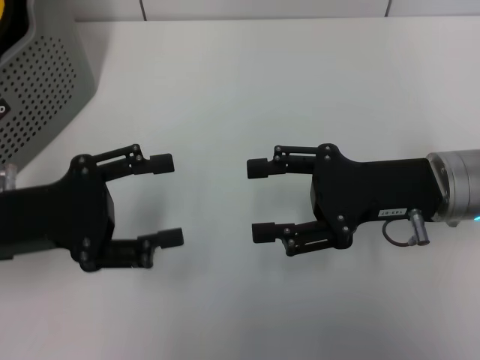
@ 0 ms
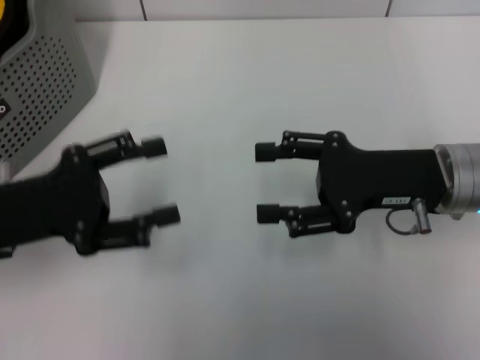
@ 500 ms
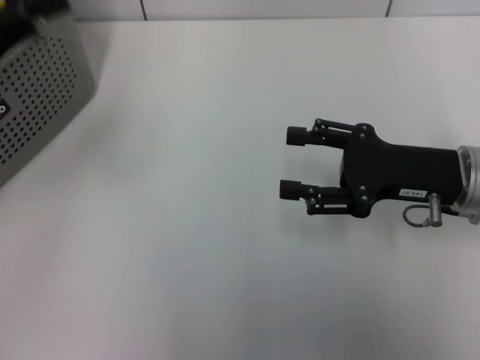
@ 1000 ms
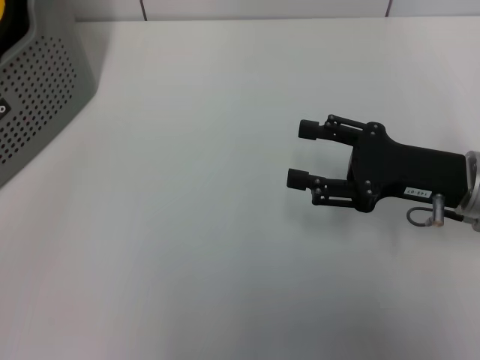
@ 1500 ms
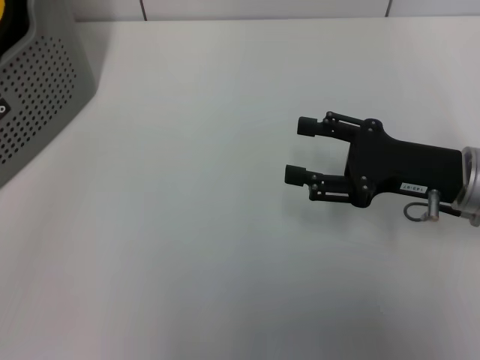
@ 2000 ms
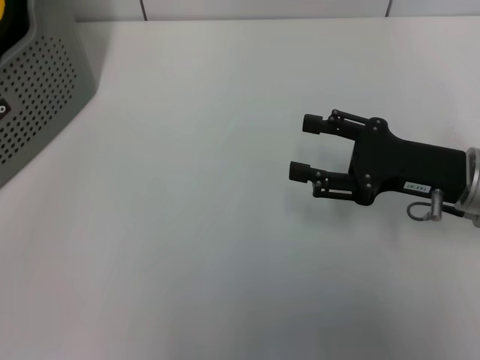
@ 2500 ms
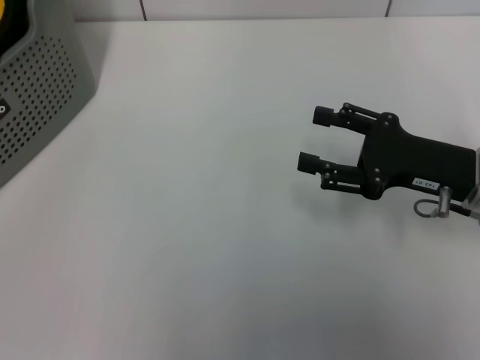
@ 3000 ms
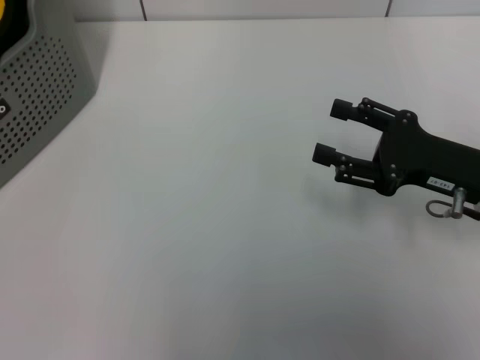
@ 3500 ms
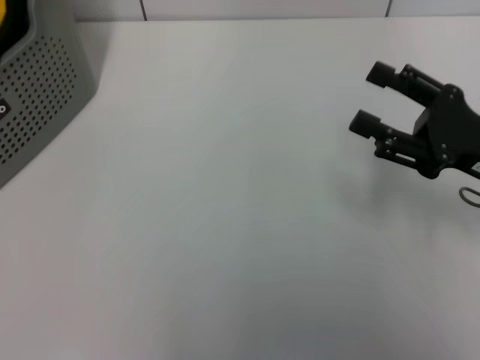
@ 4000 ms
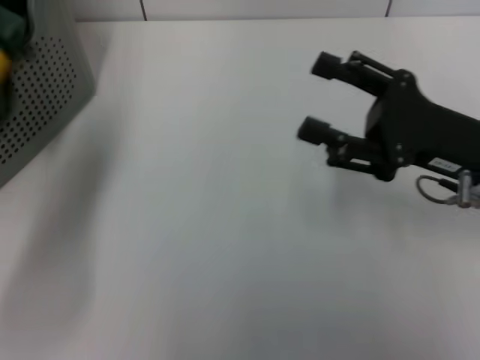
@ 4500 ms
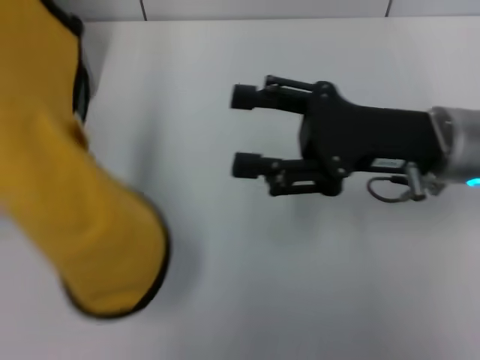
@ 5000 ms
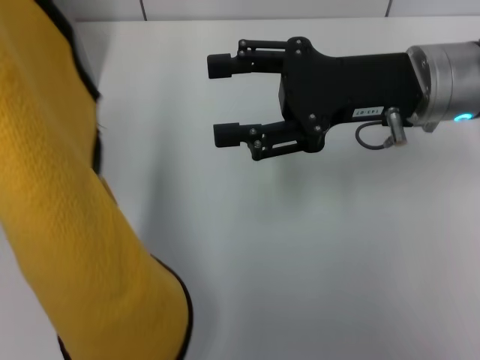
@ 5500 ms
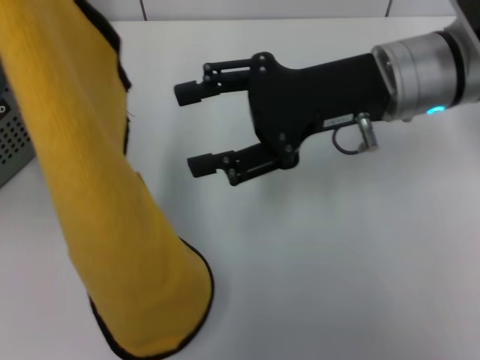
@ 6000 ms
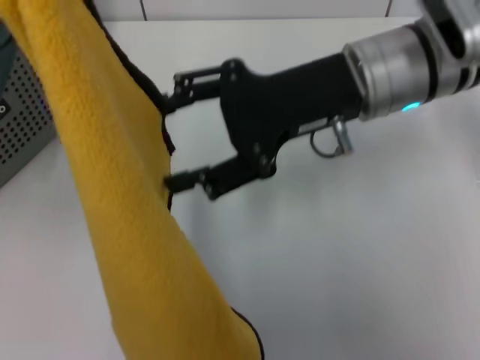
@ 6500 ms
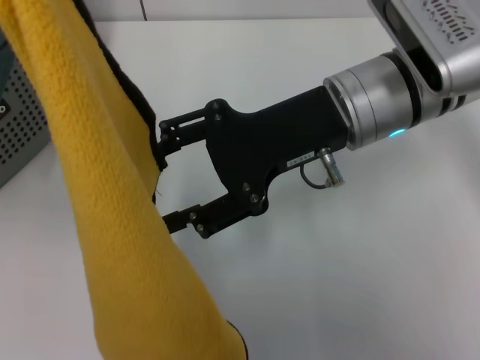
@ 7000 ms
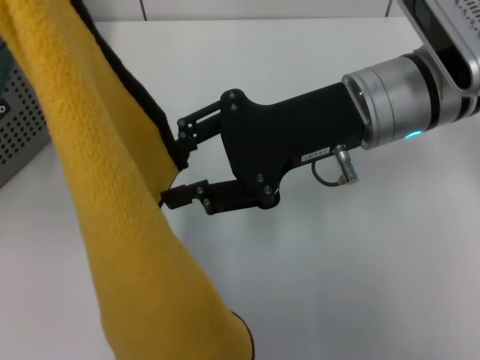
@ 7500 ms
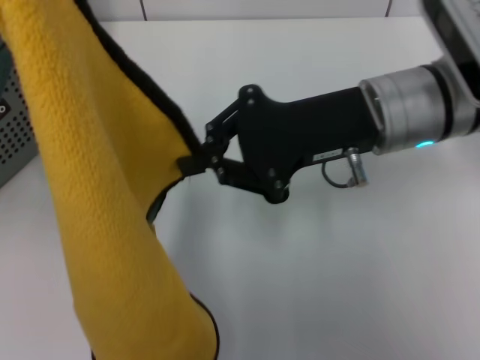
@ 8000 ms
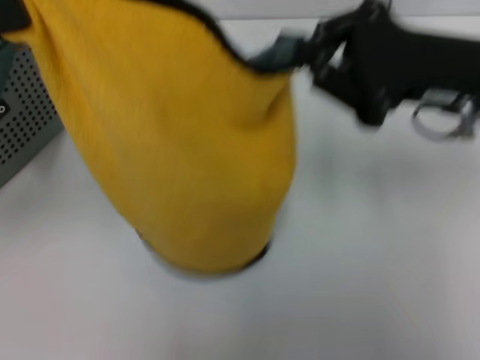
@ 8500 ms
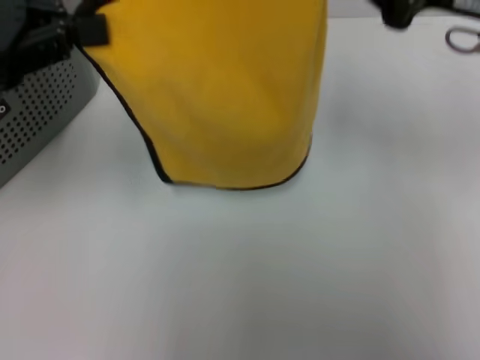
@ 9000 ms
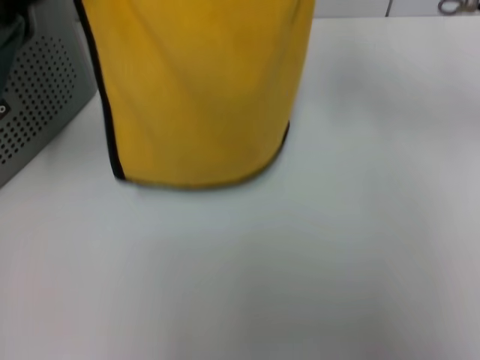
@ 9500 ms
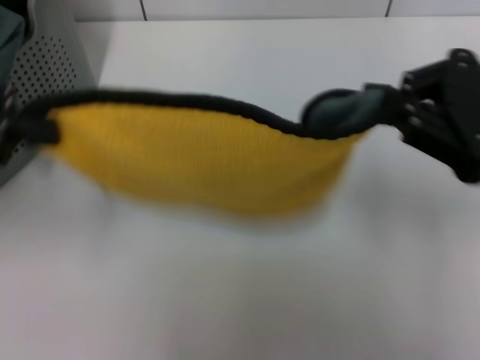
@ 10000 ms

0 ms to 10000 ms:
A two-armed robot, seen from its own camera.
Task of the whole recording: pick up the towel from the storage box and lay it flat on the table.
Step, 0 ms to 3500 ms: Pick up a towel with the left gripper.
Step, 4000 ms to 7500 ms: Spread the towel flat with the left gripper.
0 ms to 2000 ms: The left gripper travels upward and to the left by about 20 cm.
2000 ms to 4000 ms: The left gripper closes up.
4000 ms to 6000 ms: The right gripper moves to the left, upward and forward, about 15 cm; the left gripper is displaced to the right by some 15 cm.
6000 ms to 8000 ms: The right gripper closes.
8000 ms to 10000 ms: The right gripper shifts approximately 15 cm to the right and backward. The left gripper shifts by approximately 5 cm.

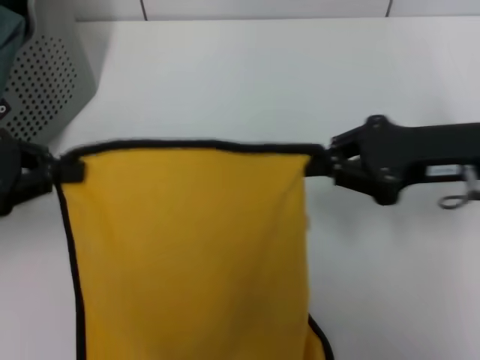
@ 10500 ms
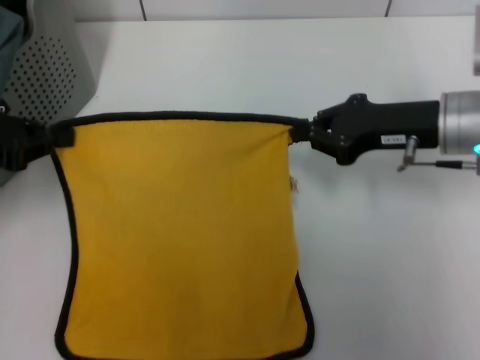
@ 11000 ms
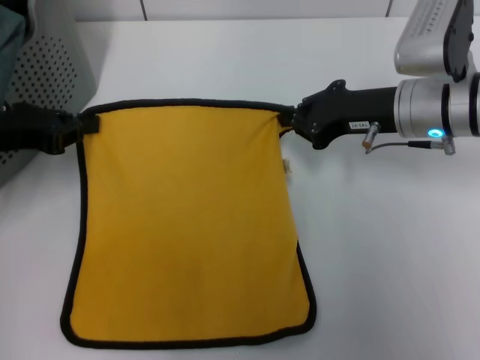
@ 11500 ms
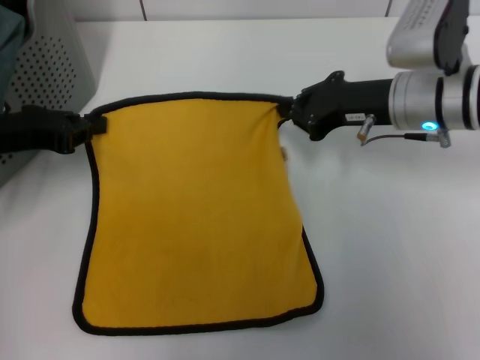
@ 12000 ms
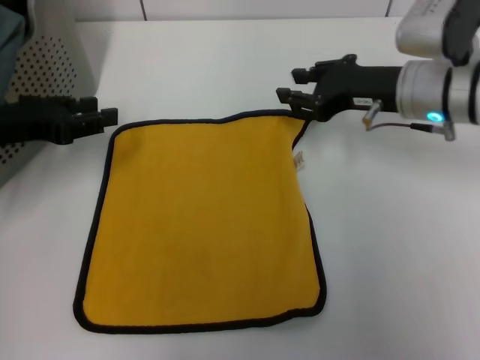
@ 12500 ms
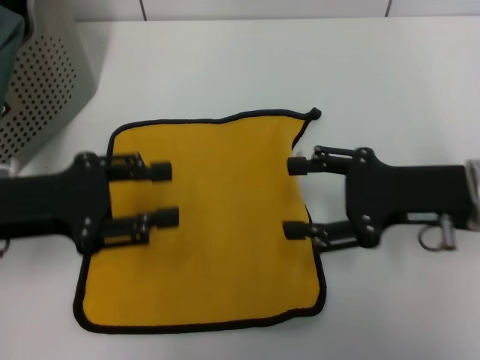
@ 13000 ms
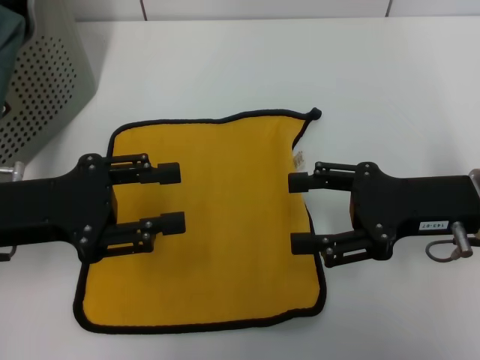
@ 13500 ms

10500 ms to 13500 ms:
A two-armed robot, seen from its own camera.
Task of the whole recording: pick up the towel from the storage box and lay it flat on the table.
10500 ms to 12000 ms: The right gripper is displaced forward and to the left by approximately 10 cm, while the left gripper heads forward and downward, covering approximately 10 cm.
12000 ms to 13500 ms: The left gripper goes some 5 cm backward, and opens up. The right gripper moves backward and to the right, about 10 cm, and opens its fingers.

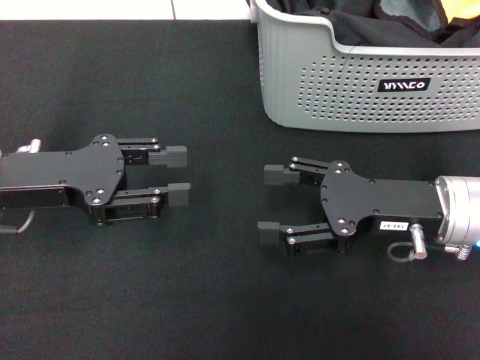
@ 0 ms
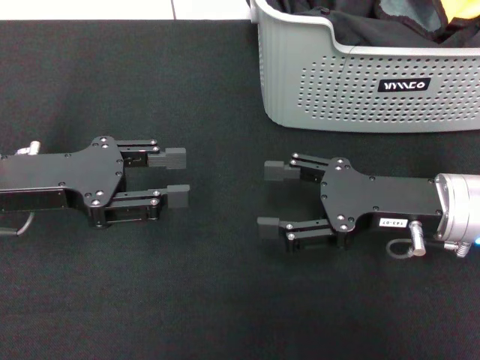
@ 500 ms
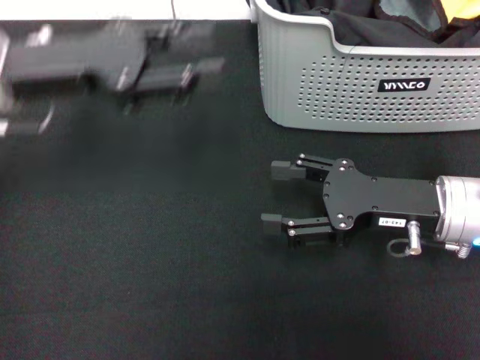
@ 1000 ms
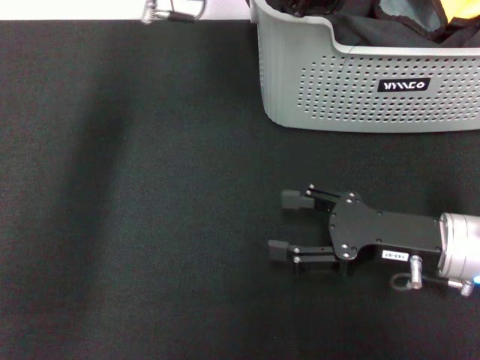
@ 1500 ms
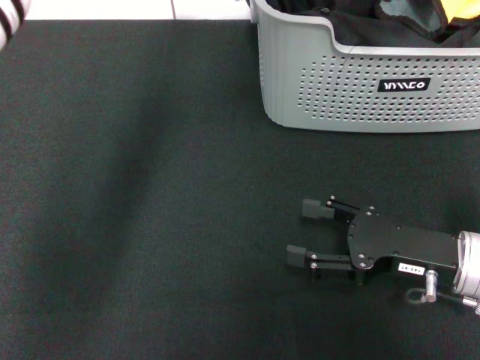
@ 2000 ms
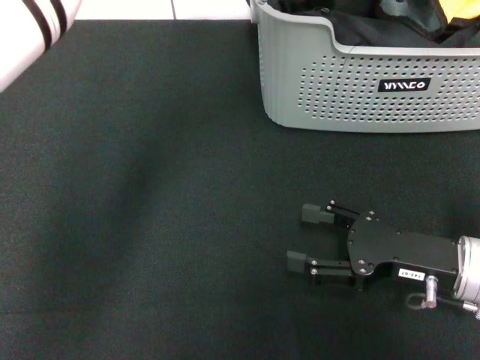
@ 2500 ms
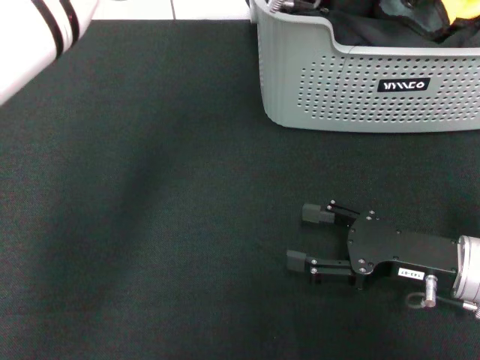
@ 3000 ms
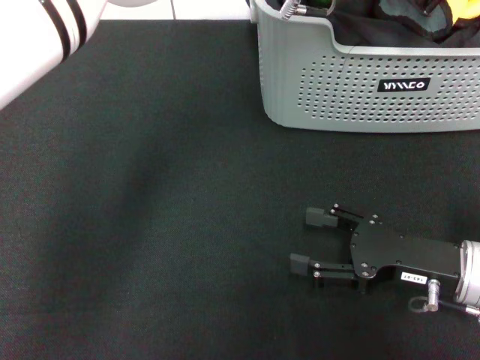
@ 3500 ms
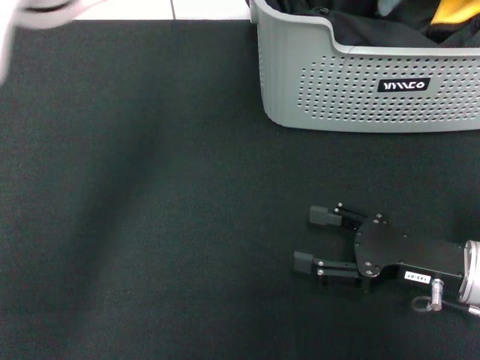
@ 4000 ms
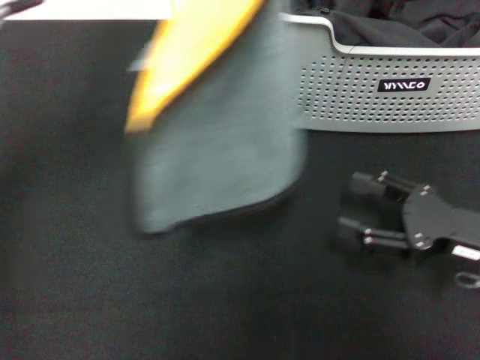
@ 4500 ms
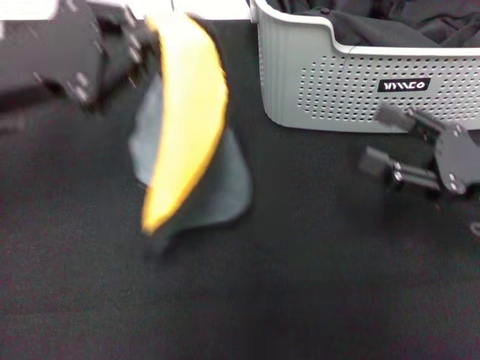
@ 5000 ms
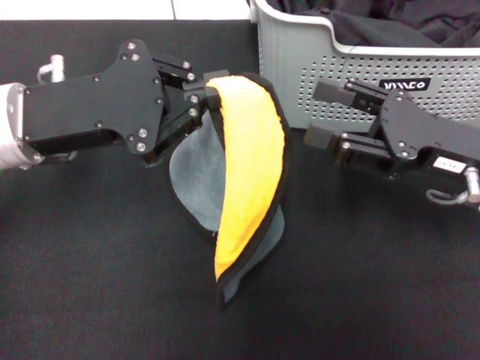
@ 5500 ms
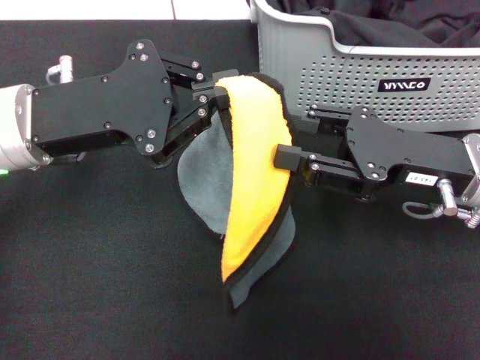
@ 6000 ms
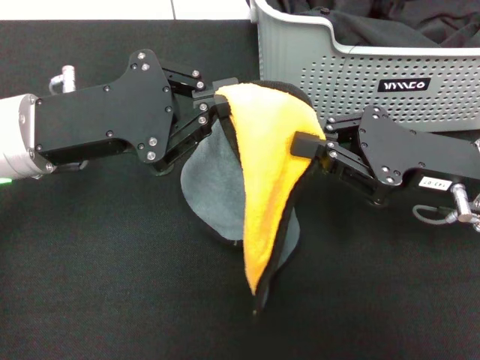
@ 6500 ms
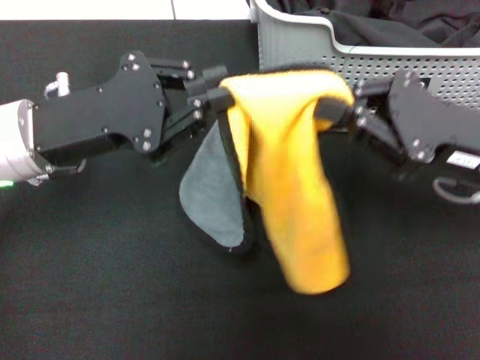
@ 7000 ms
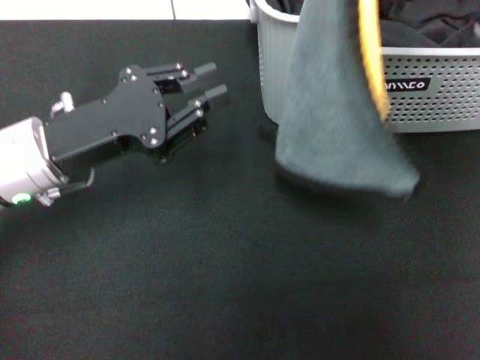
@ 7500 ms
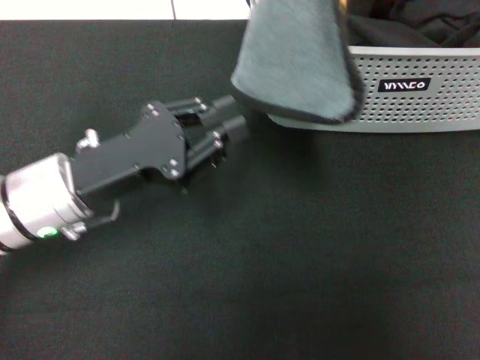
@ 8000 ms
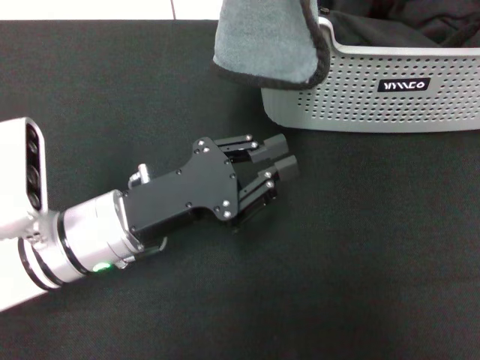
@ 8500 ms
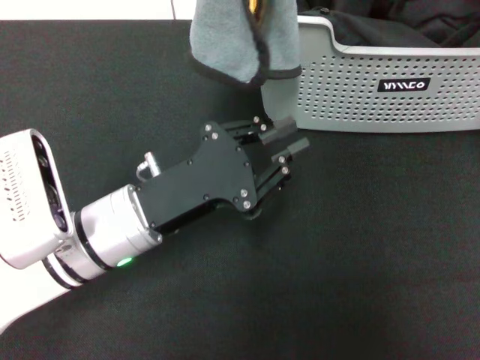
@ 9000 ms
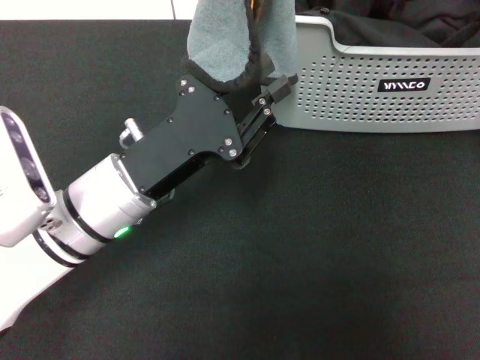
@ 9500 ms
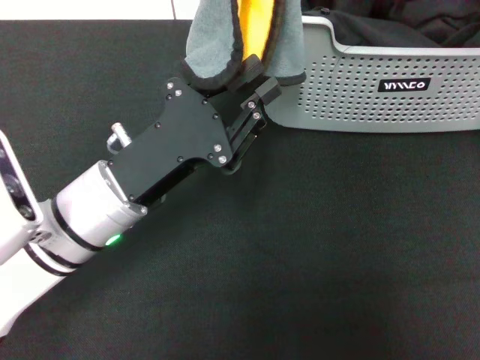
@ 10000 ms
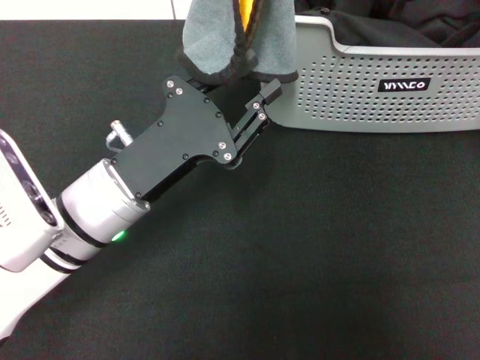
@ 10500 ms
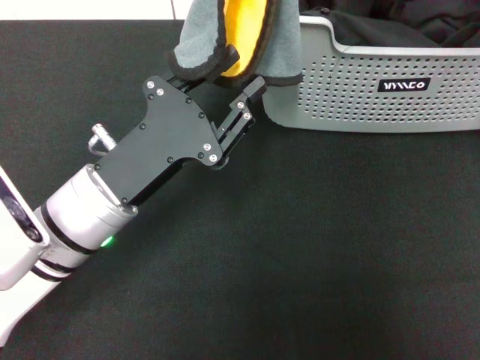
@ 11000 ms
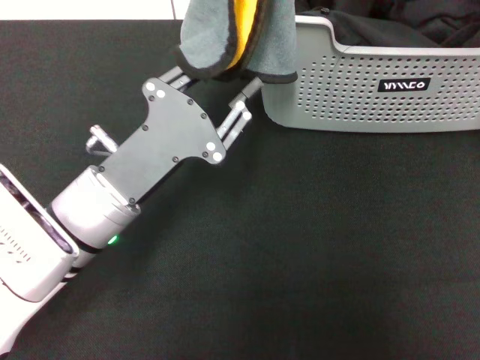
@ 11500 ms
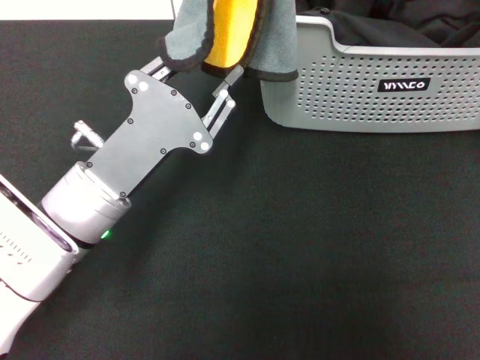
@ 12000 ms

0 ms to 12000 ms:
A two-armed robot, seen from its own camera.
Task of the whole recording: pick up the towel from the storage box and lay it flat on the black tablecloth.
Step, 0 ms to 3500 ms: Pick up a towel with the left gripper.
Step, 4000 ms to 6000 ms: Spread the towel flat with the left gripper.
0 ms to 2000 ms: The right gripper ends up approximately 5 cm from where it was. Meanwhile the left gripper goes about 30 cm to the right, forward and upward.
2000 ms to 4000 ms: The left gripper closes up.
4000 ms to 6000 ms: The left gripper heads to the left, backward and downward, covering approximately 25 cm; the right gripper moves upward and forward, about 10 cm.
6000 ms to 8000 ms: The left gripper moves downward, about 5 cm, and opens; the right gripper is displaced upward and forward by roughly 15 cm, and closes its fingers.
8000 ms to 10000 ms: The left gripper shifts by some 5 cm.
